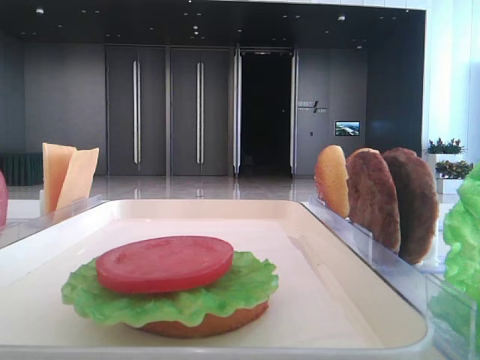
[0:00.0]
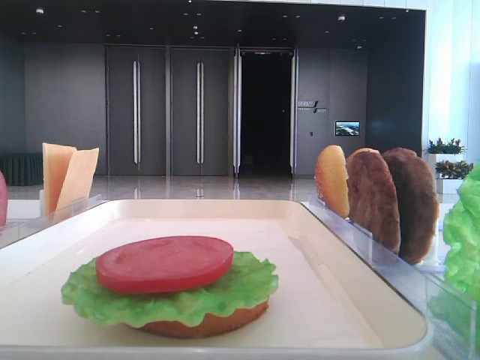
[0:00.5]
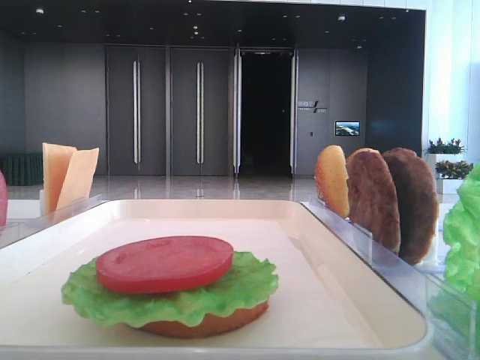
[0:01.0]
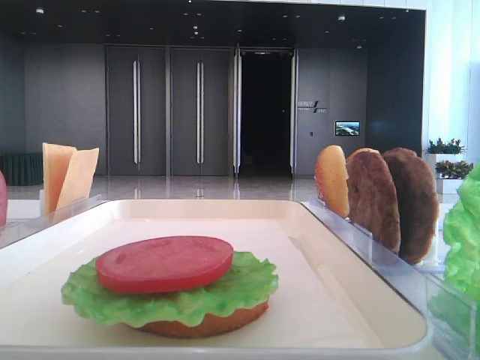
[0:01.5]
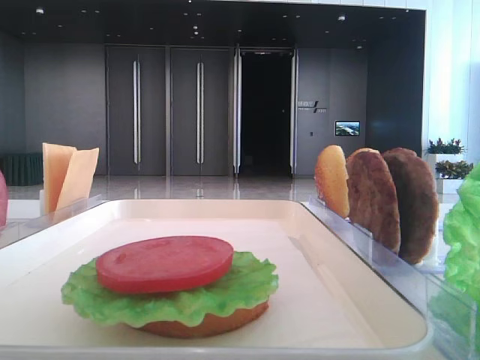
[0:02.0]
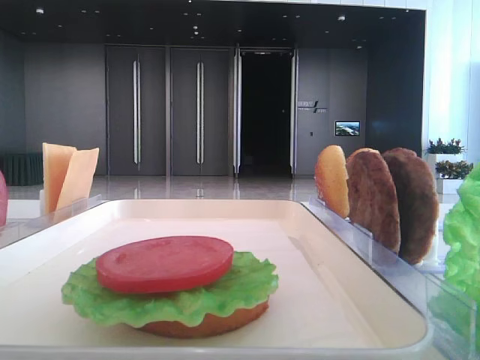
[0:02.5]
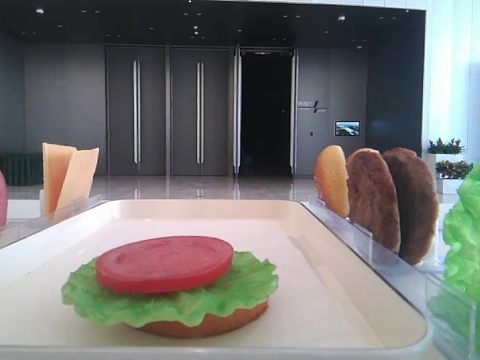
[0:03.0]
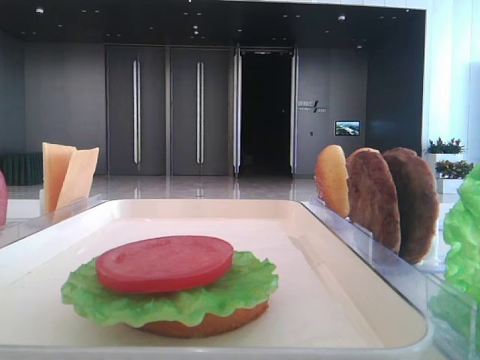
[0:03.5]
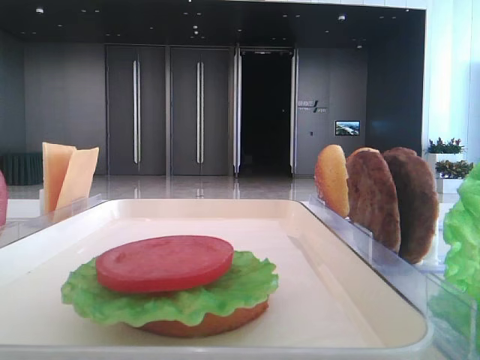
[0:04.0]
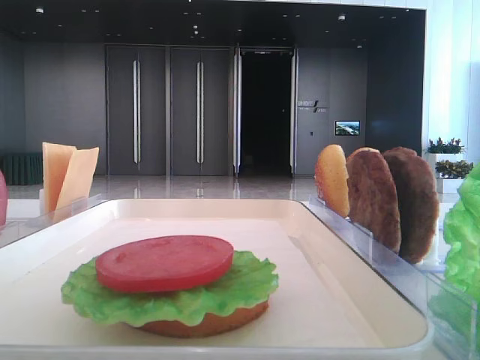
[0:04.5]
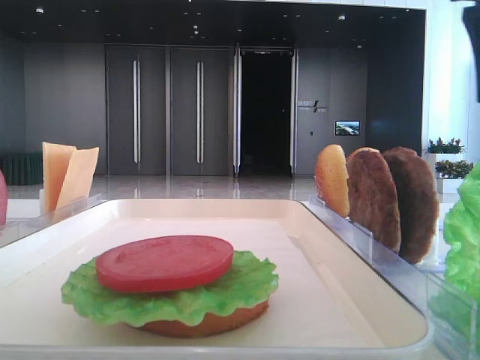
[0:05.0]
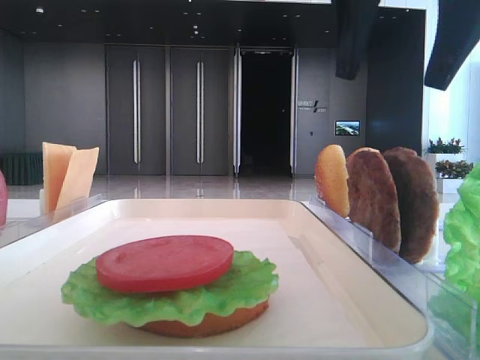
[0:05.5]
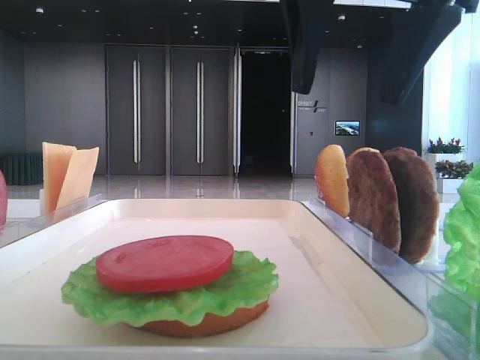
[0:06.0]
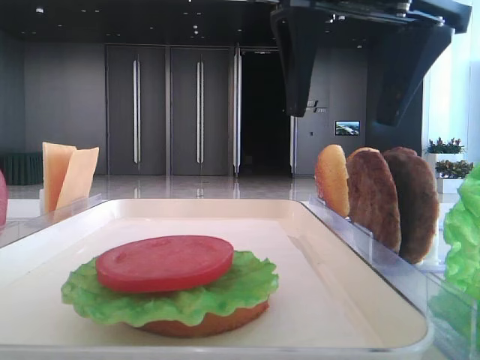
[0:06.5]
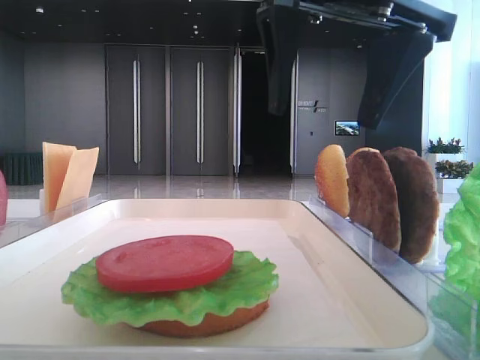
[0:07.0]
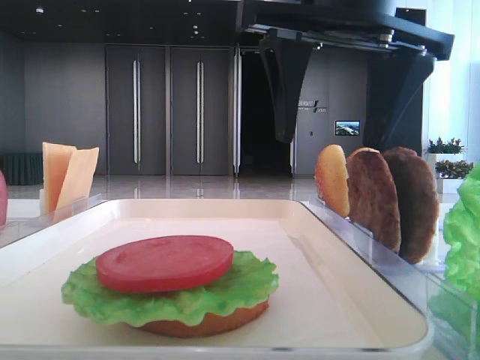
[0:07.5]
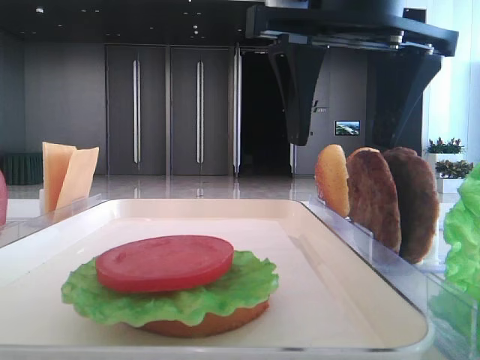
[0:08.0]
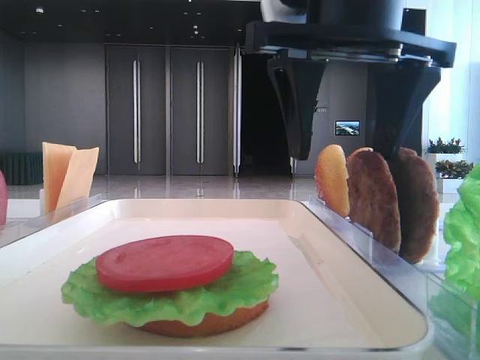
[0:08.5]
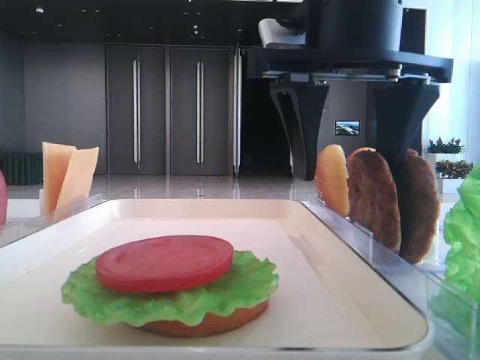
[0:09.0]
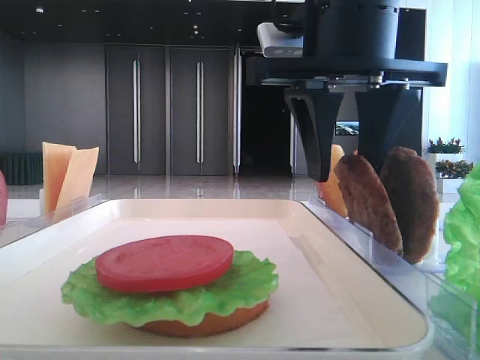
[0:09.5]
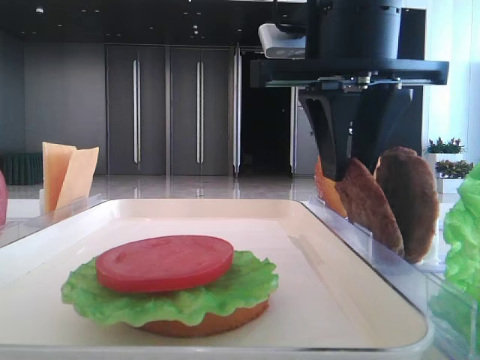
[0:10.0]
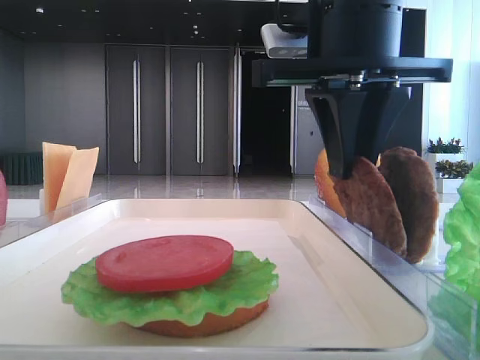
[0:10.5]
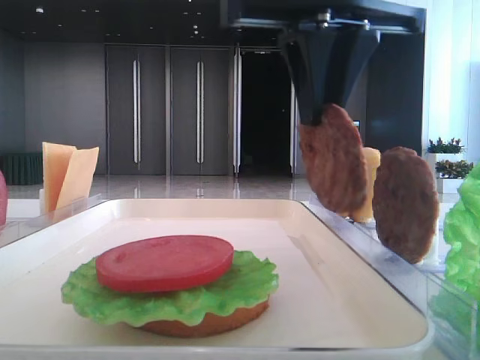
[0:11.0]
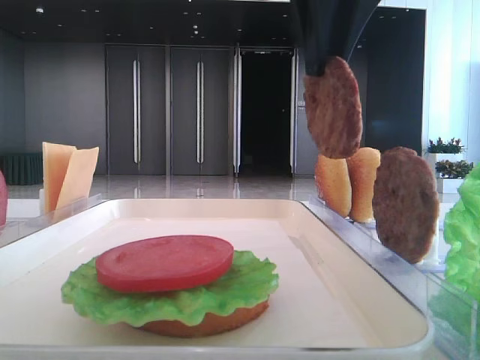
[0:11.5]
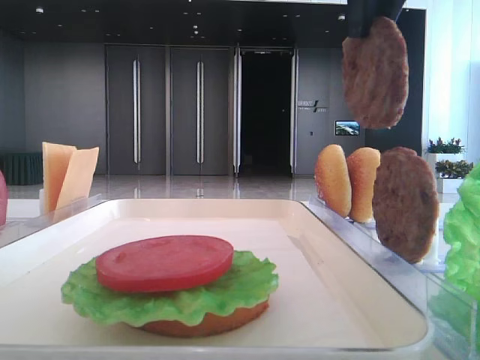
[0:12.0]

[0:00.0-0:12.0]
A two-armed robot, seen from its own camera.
Step, 0:00.0 to 0:10.5: Grab the patty with the right hand.
0:04.0 to 0:06.0: The right gripper goes about 20 cm to the left.
0:06.0 to 0:08.0: The grippers move only a little.
0:08.0 to 0:10.0: The right gripper closes up.
0:10.0 to 0:12.0: The right gripper shifts approximately 10 cm upward.

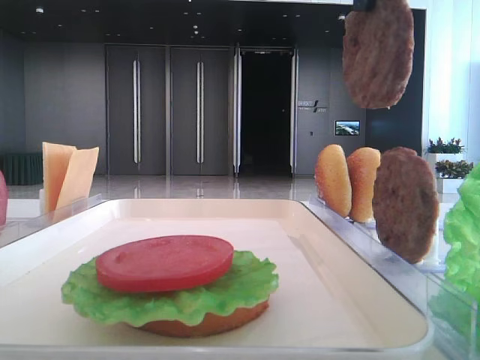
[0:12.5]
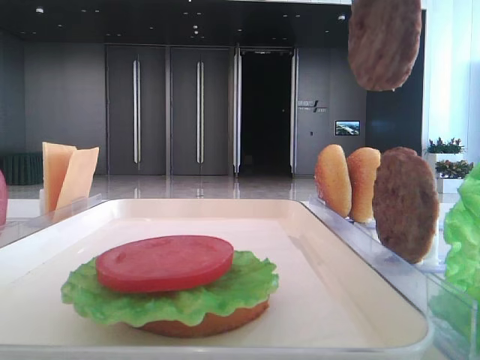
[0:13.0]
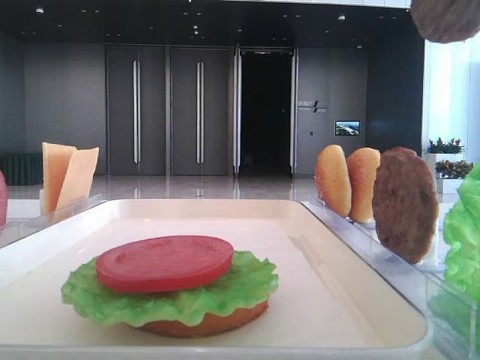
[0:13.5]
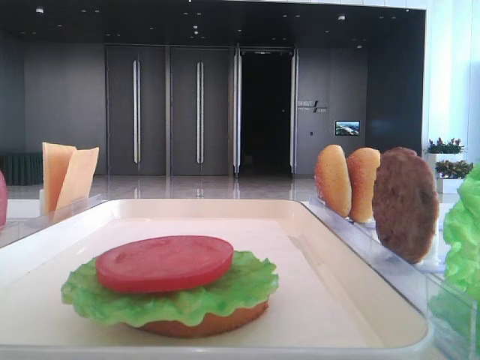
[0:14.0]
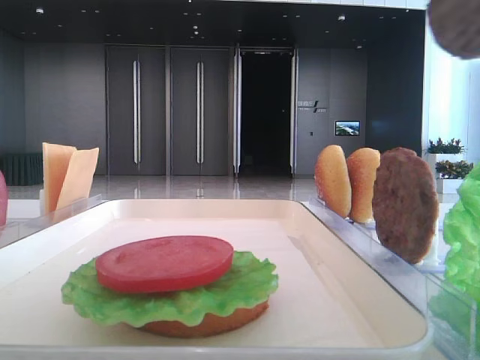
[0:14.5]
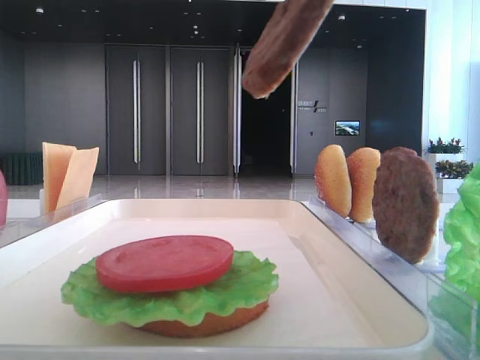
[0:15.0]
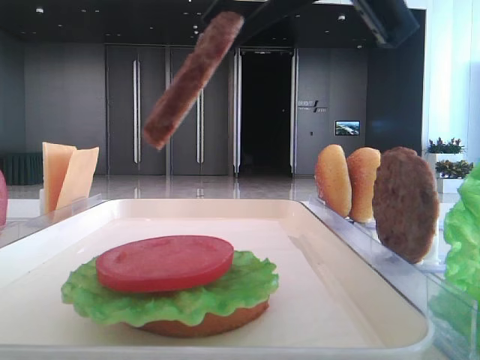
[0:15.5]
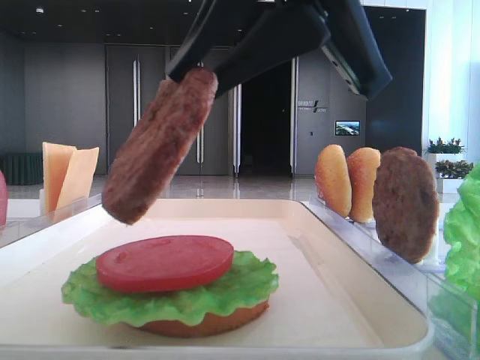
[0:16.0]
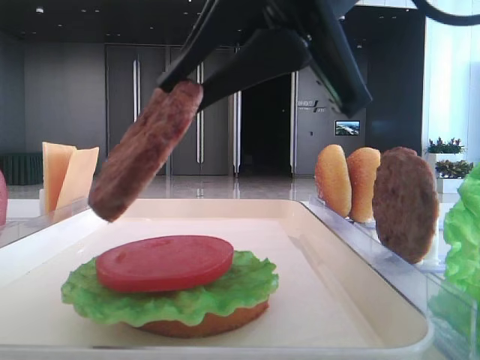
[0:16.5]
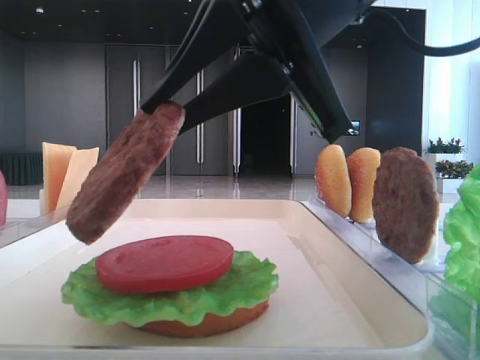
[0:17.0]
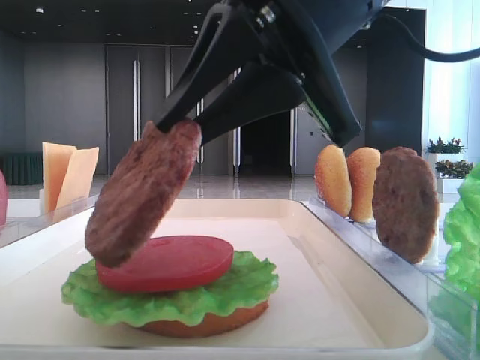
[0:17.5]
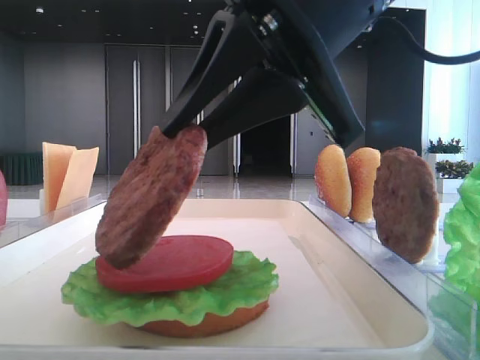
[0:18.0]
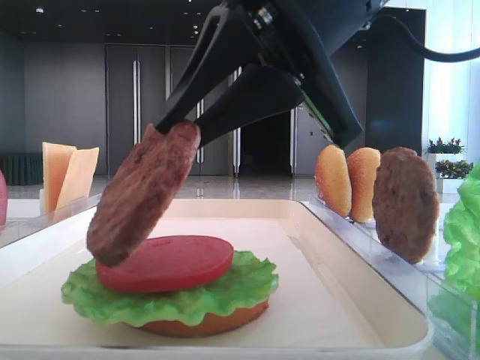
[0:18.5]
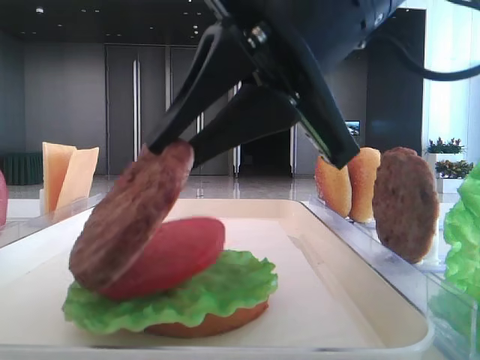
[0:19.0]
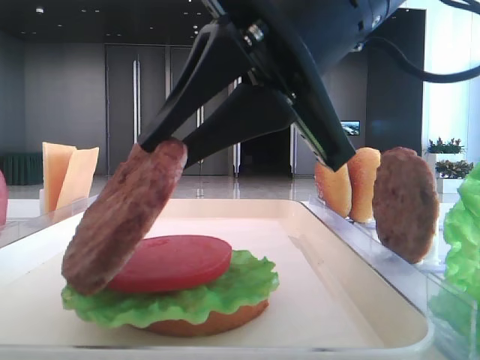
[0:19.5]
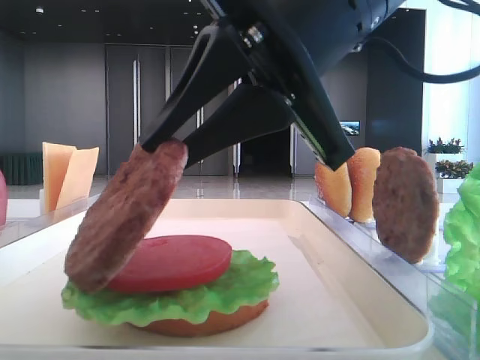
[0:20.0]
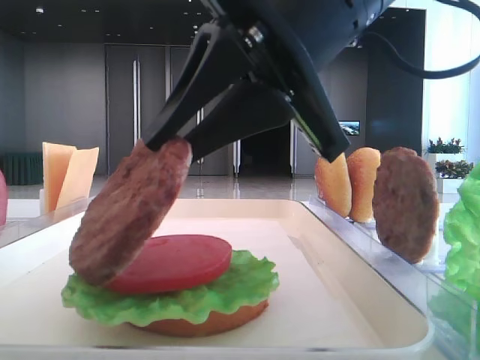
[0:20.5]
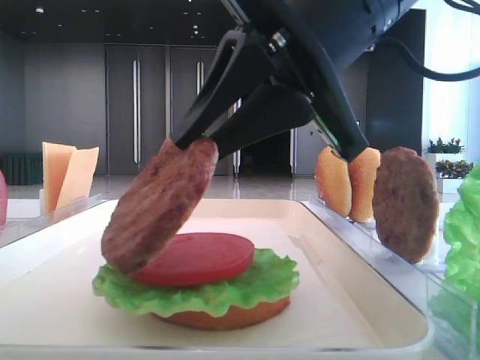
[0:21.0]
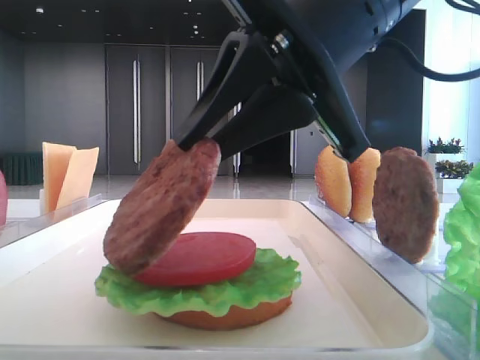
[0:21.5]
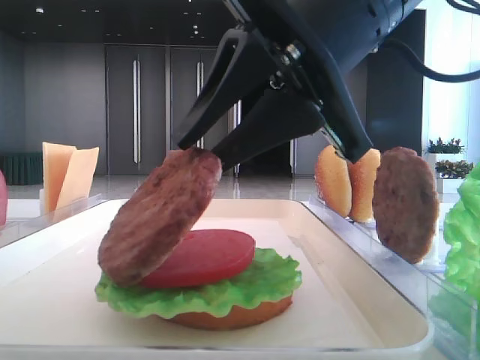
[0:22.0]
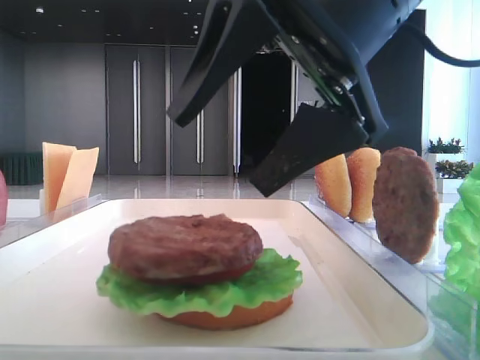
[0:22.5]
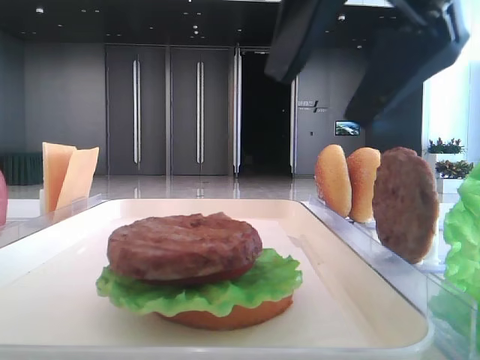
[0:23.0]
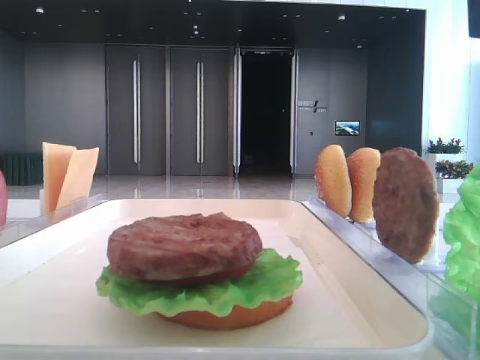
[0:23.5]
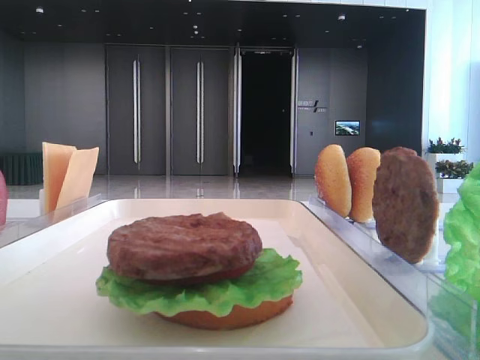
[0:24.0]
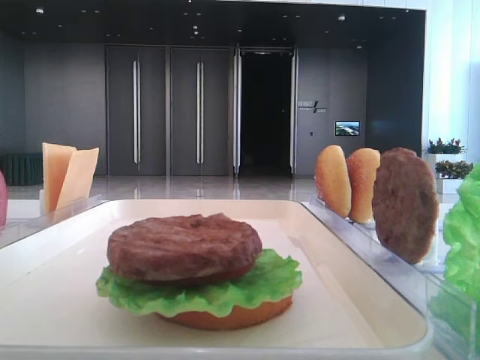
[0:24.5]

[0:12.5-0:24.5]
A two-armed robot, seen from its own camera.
Step, 0:12.5 to 0:22.0: Place the patty on the tomato slice with the right hand.
0:12.5 to 0:14.5: The right gripper heads backward and to the right, covering some 15 cm.
0:14.5 to 0:16.5: The right gripper goes some 20 cm to the left, downward and forward.
0:16.5 to 0:18.5: The grippers stay close to where they were, moving slightly.
0:18.5 to 0:20.5: Both grippers stay put.
0:20.5 to 0:22.5: The right gripper opens.
0:22.5 to 0:24.5: The right gripper shifts approximately 30 cm to the right, upward and backward.

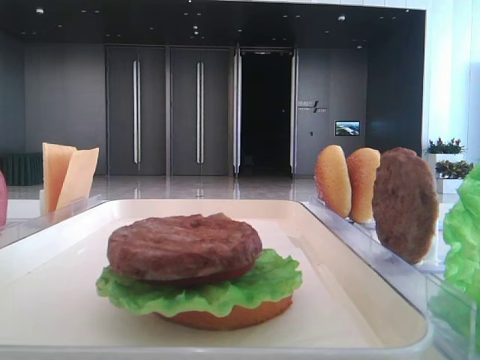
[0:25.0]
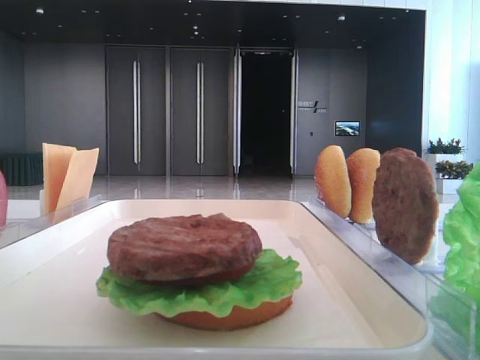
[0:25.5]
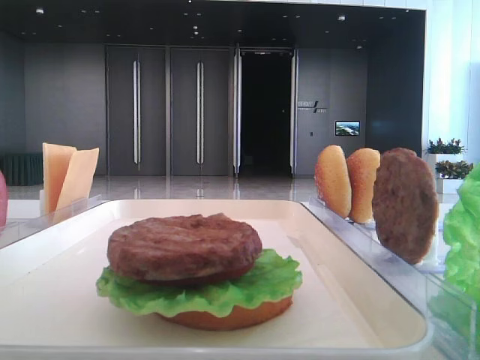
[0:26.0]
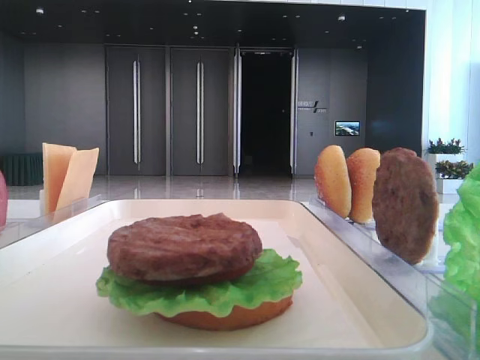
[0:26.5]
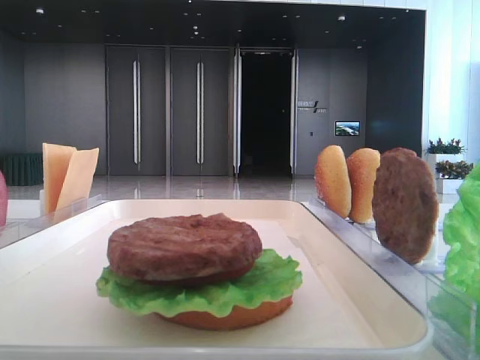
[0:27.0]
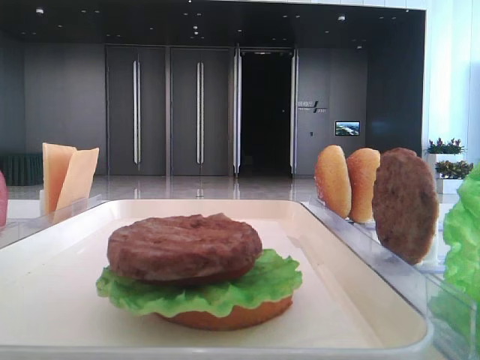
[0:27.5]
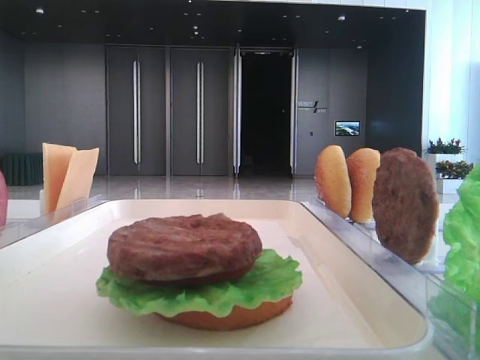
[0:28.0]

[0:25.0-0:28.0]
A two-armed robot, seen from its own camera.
0:26.5 to 0:28.0: Neither gripper changes place.
